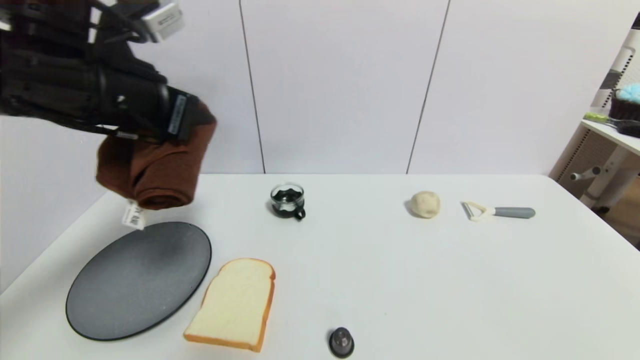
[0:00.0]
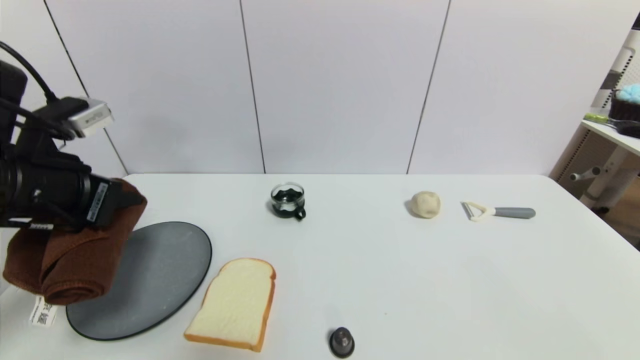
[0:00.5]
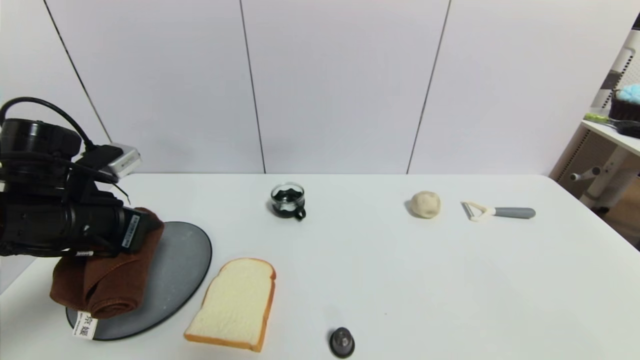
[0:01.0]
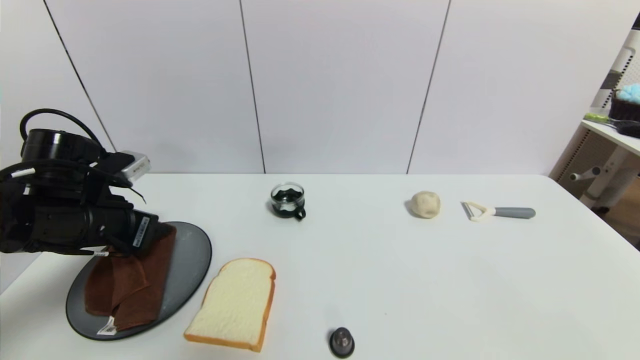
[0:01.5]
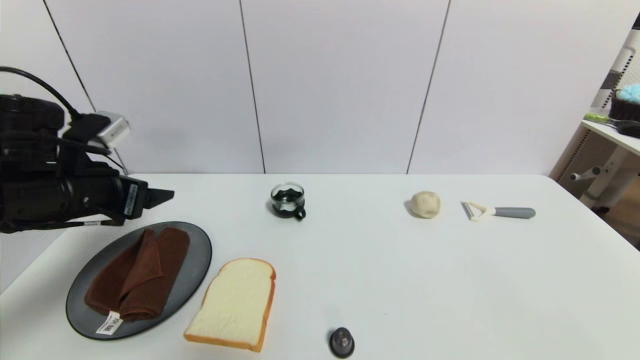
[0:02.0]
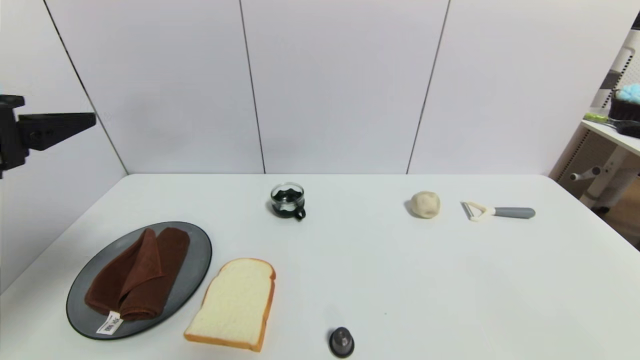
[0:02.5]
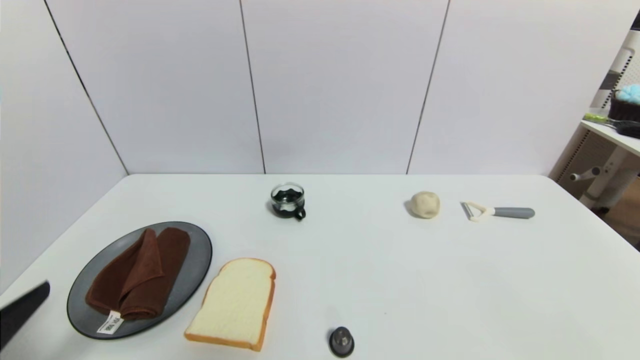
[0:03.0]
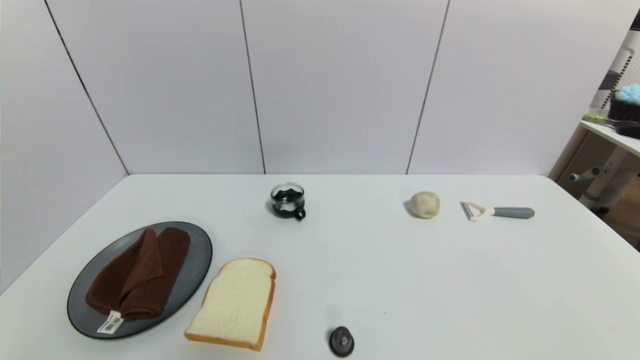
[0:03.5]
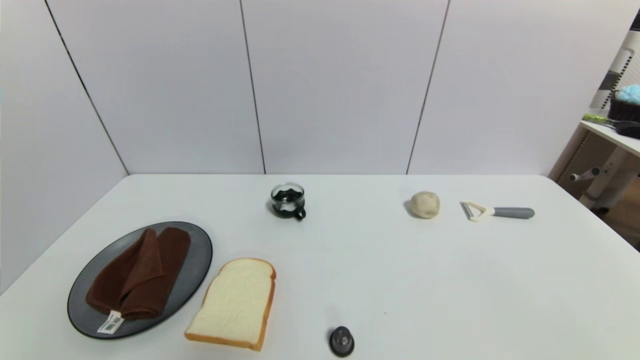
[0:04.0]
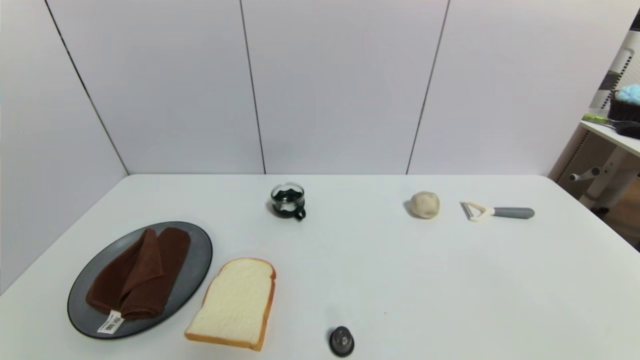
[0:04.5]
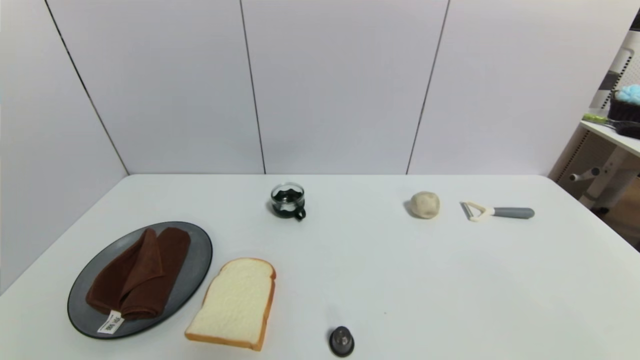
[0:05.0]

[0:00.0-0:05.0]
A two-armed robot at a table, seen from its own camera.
Task of the whole recording: use a gripper to pick the target object and place on the gray plate.
Step, 0:00.0 to 0:01.5: Place the brown towel on the gray plate with the left gripper.
0:00.0 to 0:02.5: The left gripper shifts roughly 15 cm backward and to the left, goes downward and returns, some 15 cm each way, and opens up.
0:02.5 to 0:05.0: The left gripper travels downward and backward by roughly 30 cm.
